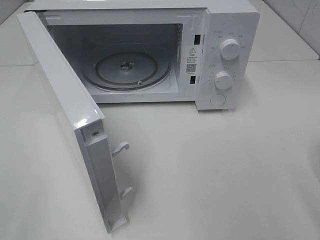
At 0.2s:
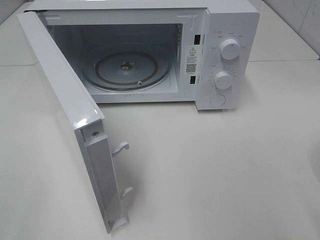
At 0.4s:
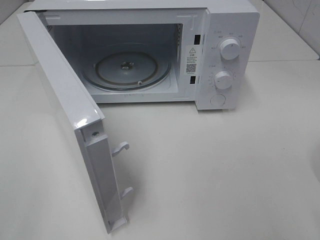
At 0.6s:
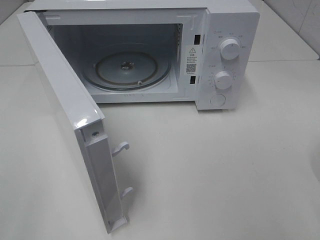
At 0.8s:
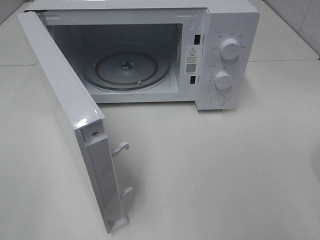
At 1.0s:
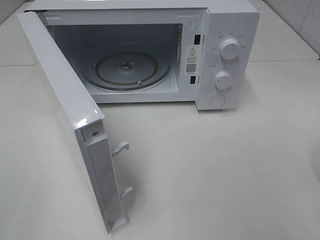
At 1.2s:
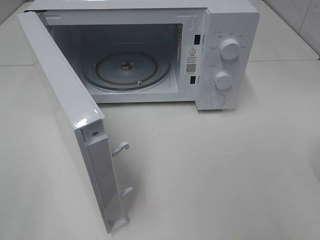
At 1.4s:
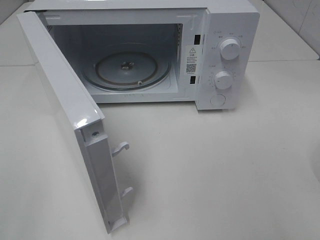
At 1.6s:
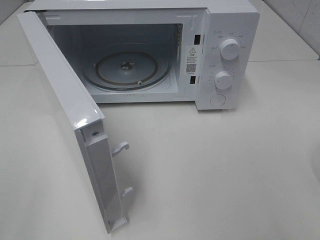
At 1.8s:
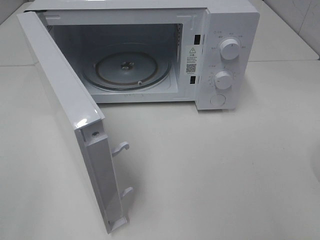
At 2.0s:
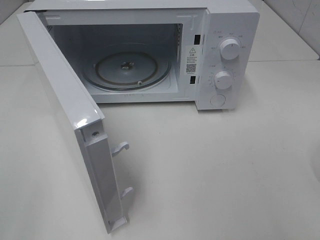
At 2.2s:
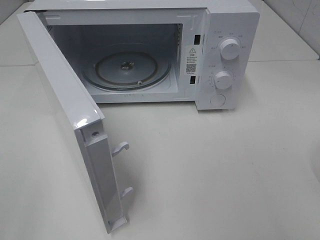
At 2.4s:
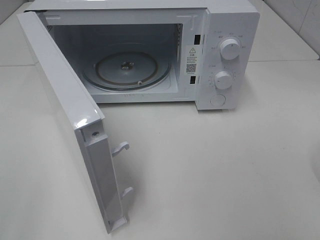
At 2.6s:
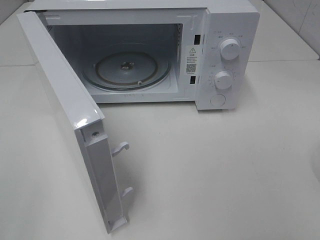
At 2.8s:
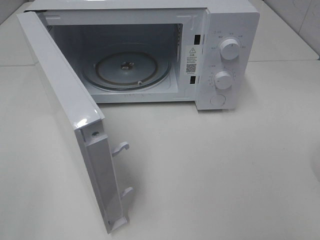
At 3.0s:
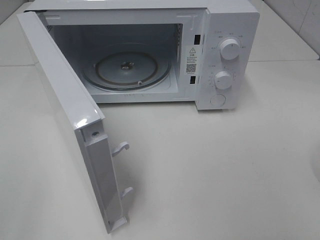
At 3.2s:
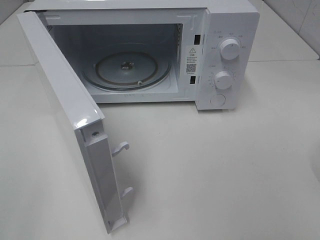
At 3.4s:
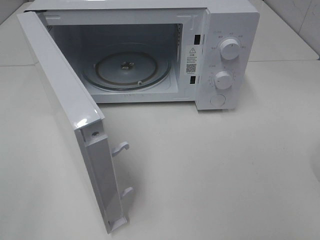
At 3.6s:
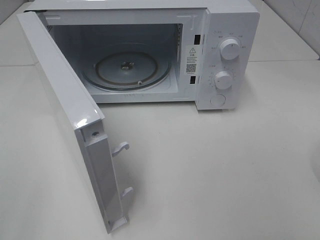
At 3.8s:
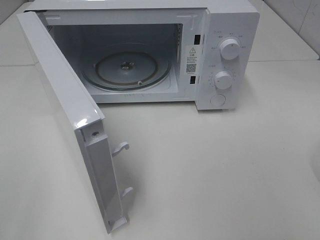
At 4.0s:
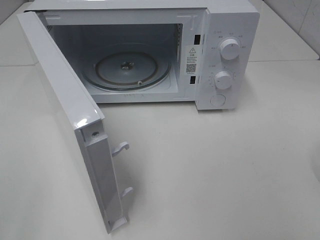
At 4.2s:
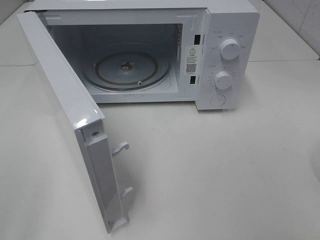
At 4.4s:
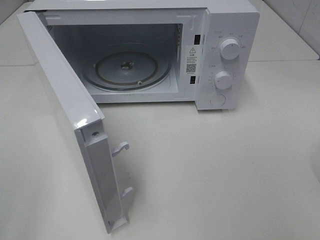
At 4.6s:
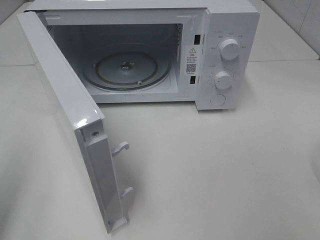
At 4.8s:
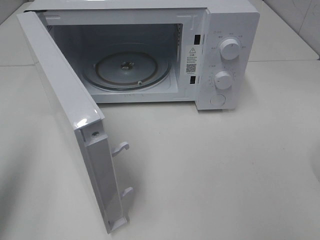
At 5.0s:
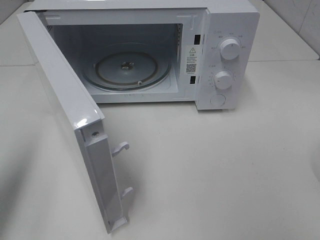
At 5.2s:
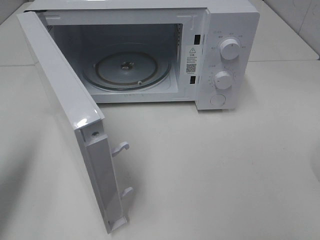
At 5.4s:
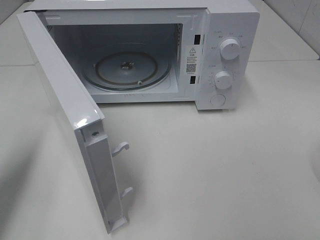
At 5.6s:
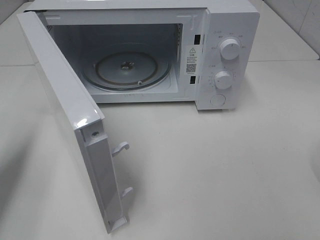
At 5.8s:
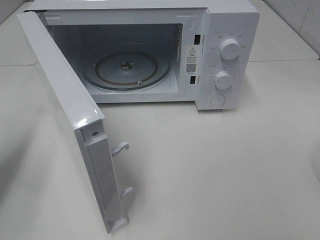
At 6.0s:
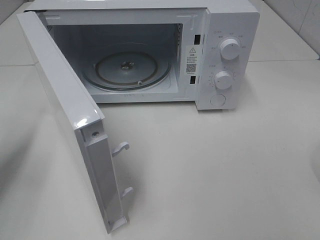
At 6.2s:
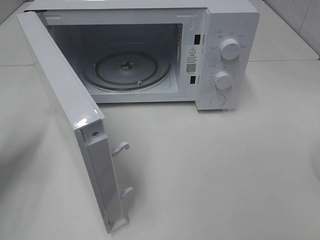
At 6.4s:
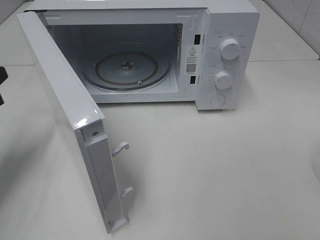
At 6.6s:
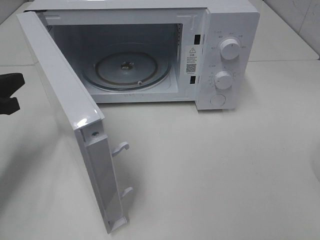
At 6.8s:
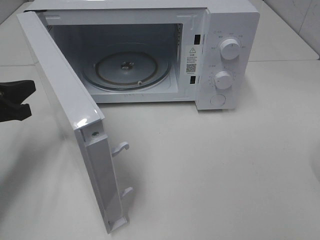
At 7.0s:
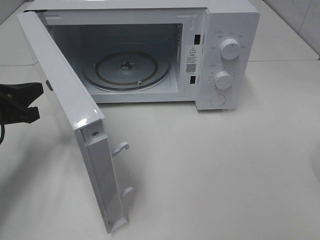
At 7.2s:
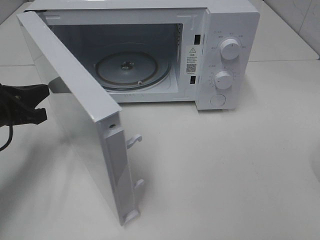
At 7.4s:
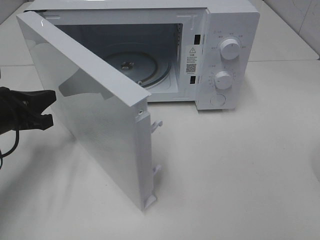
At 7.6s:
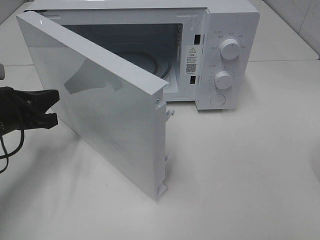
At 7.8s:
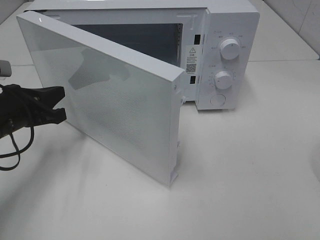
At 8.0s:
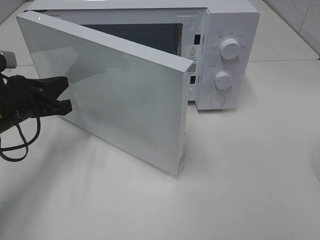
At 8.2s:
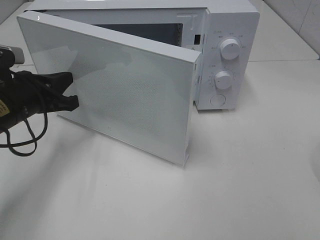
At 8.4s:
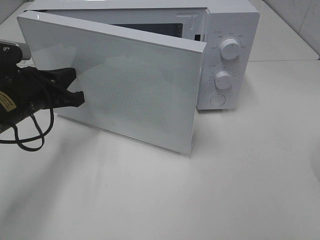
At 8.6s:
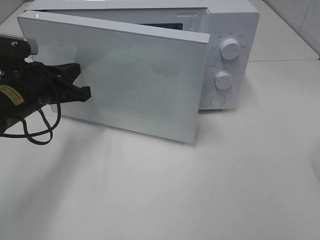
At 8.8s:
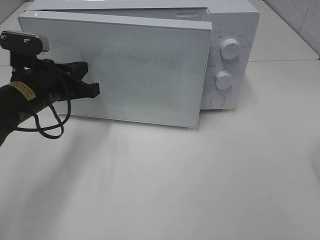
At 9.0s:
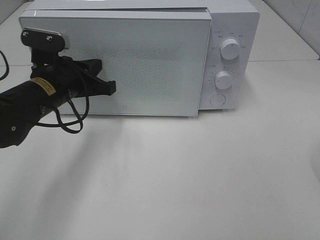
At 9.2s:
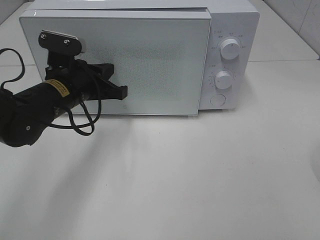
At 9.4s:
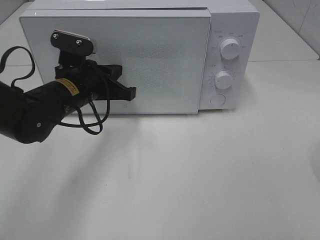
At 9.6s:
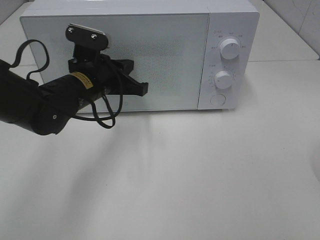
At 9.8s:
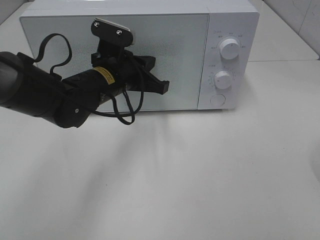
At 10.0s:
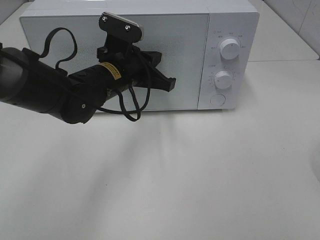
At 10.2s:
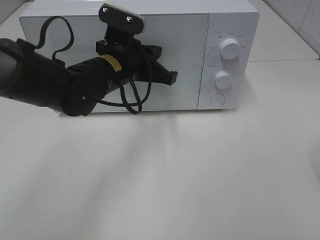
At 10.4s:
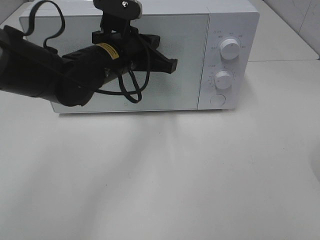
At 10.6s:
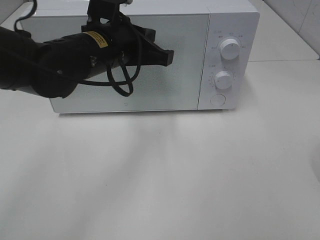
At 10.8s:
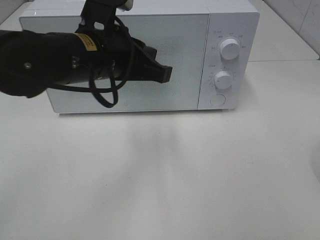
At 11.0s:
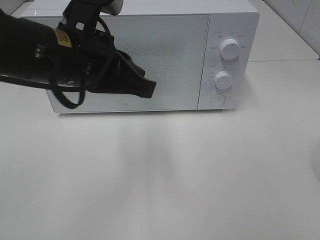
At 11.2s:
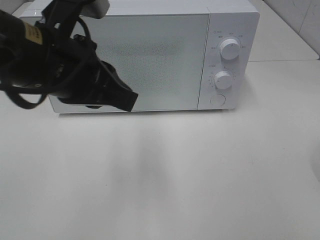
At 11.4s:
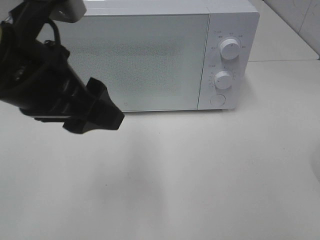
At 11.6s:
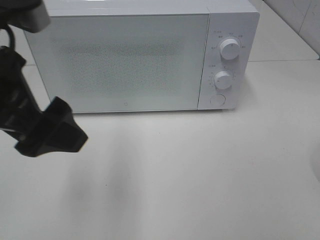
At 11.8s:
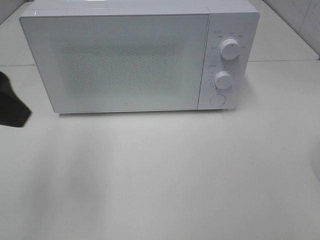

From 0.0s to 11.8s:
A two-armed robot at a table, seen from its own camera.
Task of the whole recording: Heat the burger.
Step, from 0.0s to 9.8s: Left hand: close the microwave door.
From 4.4s to 6.0s: The left gripper is displaced forward and downward by roughly 25 cm, and closes.
From 6.0s to 7.4s: The left gripper moves to the right and downward, some 10 cm.
From 7.4s to 8.8s: The left gripper shifts some 10 cm to the right.
From 8.8s to 10.4s: The left gripper is displaced to the right by approximately 10 cm.
From 10.4s to 11.8s: The left gripper is displaced to the left, backward and upward by about 25 cm, and opens.

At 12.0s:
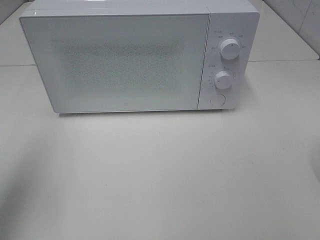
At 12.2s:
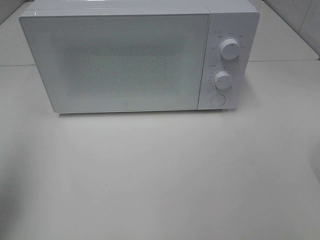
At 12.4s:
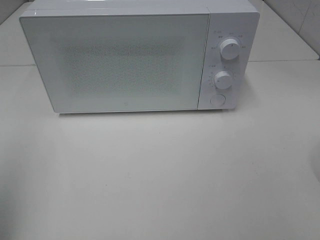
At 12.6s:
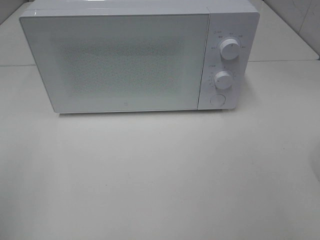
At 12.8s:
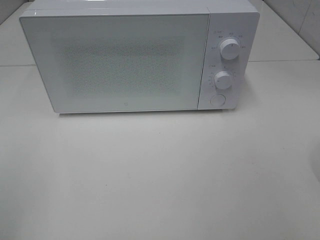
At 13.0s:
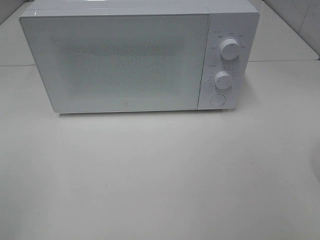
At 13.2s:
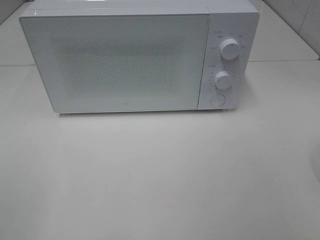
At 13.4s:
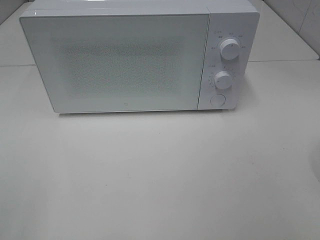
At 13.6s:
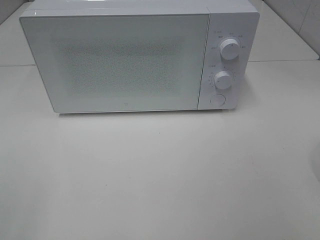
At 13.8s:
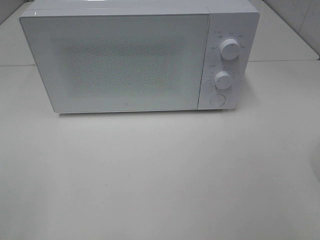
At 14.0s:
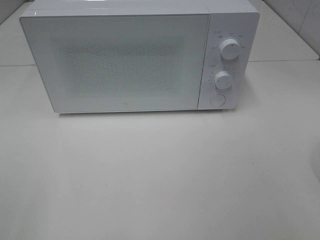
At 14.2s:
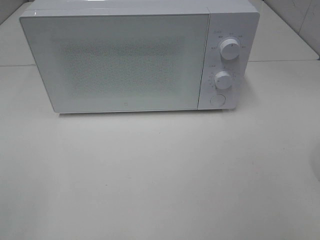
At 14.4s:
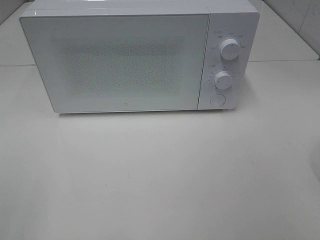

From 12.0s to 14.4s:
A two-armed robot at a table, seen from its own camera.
Task of the whole recording: Heat the burger.
From 12.0s to 13.2s: The left gripper is displaced backward by roughly 20 cm.
From 13.2s to 14.4s: Both grippers stay about where they are.

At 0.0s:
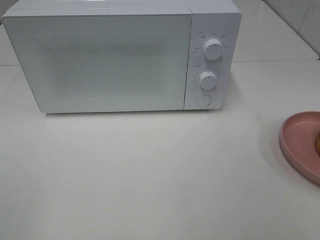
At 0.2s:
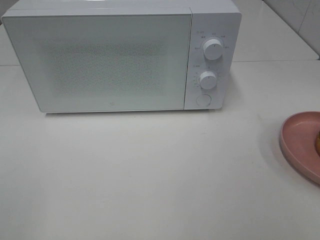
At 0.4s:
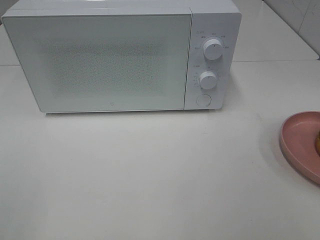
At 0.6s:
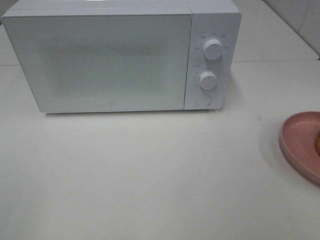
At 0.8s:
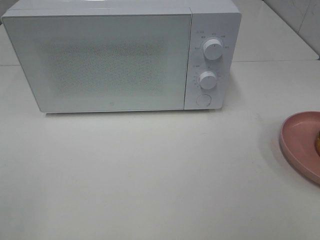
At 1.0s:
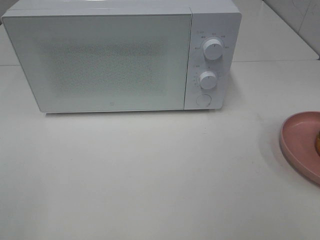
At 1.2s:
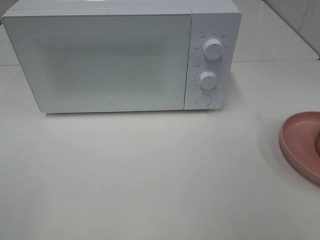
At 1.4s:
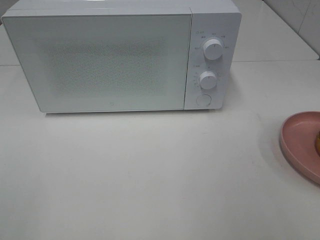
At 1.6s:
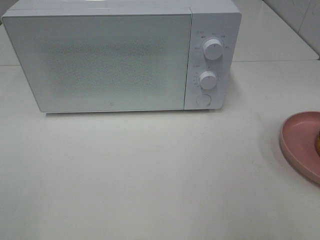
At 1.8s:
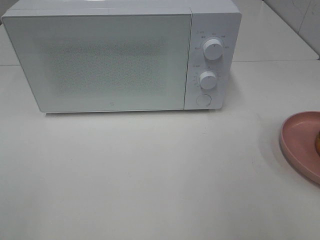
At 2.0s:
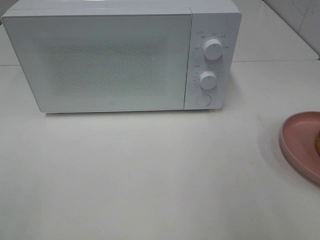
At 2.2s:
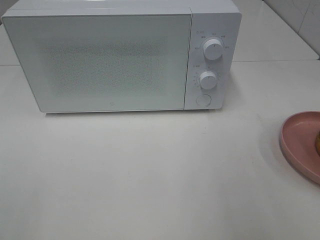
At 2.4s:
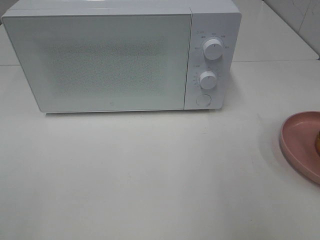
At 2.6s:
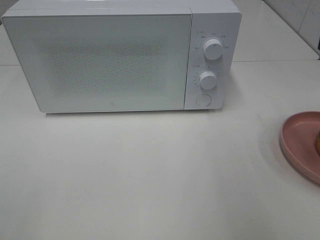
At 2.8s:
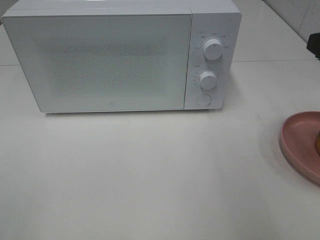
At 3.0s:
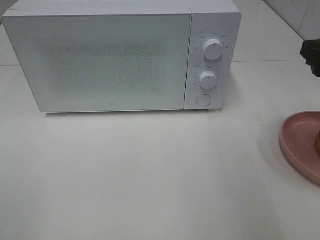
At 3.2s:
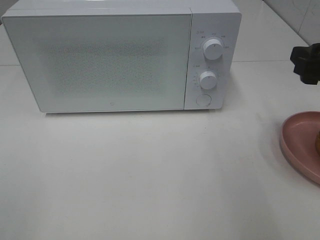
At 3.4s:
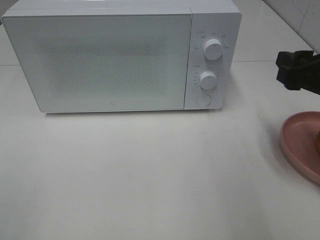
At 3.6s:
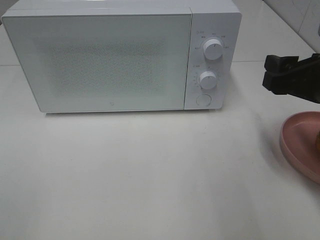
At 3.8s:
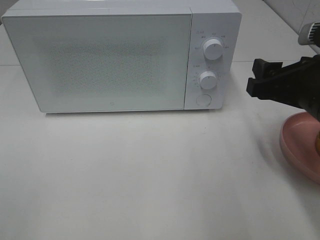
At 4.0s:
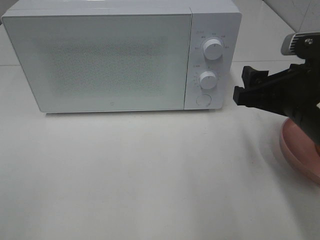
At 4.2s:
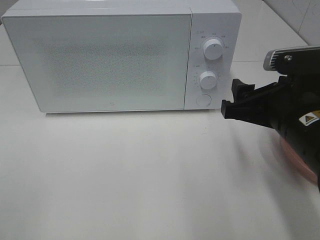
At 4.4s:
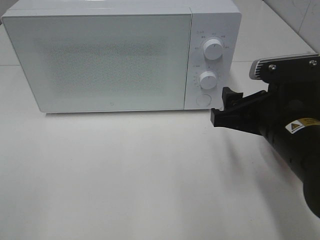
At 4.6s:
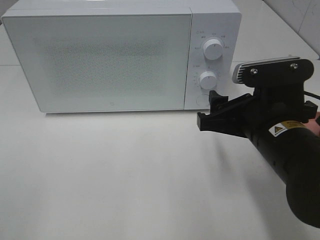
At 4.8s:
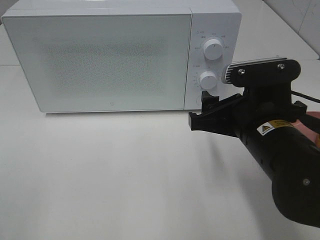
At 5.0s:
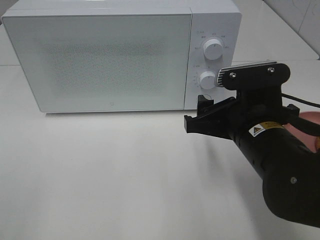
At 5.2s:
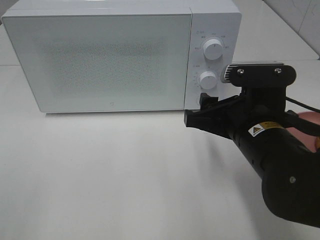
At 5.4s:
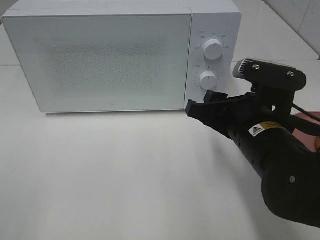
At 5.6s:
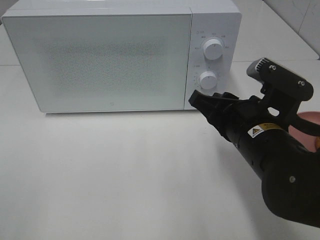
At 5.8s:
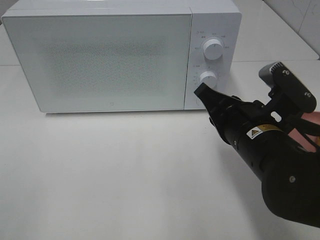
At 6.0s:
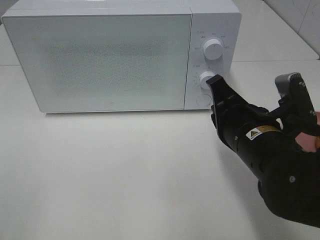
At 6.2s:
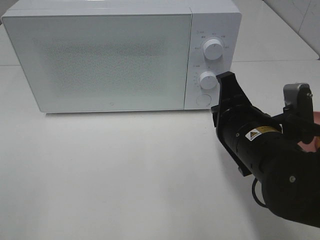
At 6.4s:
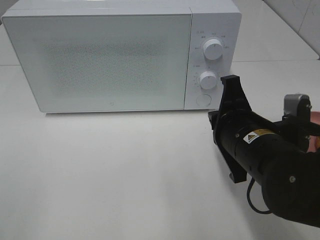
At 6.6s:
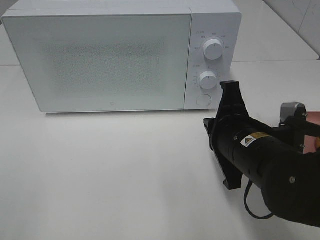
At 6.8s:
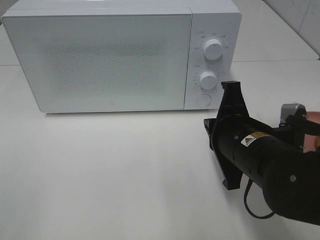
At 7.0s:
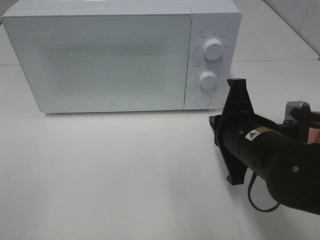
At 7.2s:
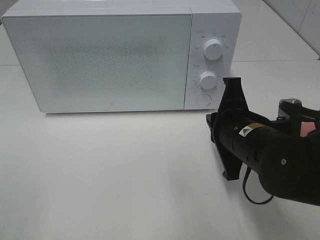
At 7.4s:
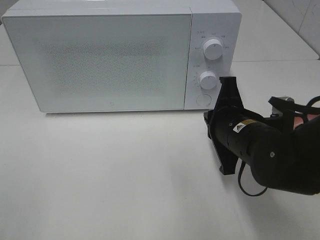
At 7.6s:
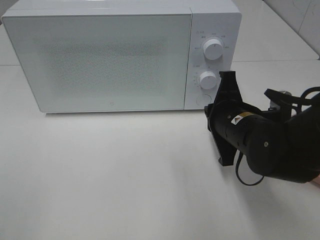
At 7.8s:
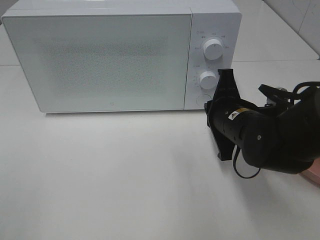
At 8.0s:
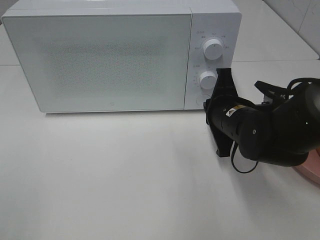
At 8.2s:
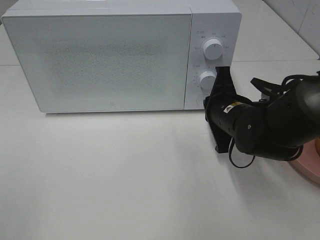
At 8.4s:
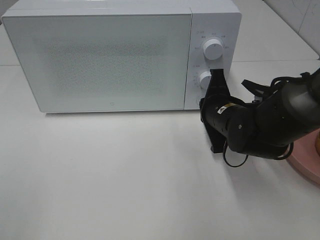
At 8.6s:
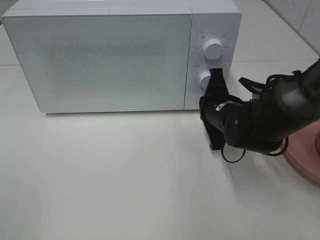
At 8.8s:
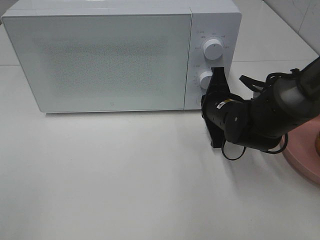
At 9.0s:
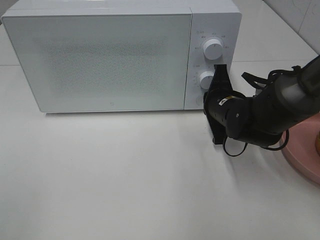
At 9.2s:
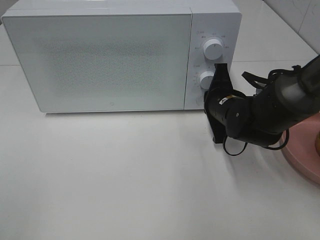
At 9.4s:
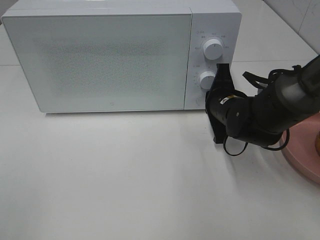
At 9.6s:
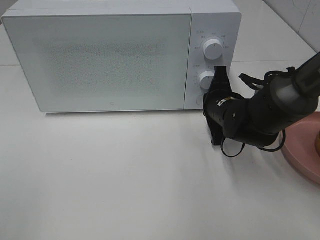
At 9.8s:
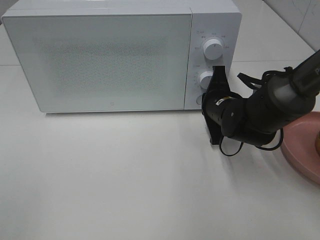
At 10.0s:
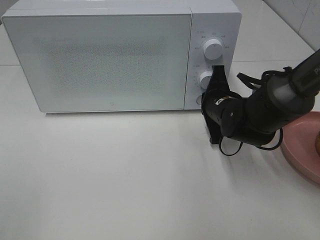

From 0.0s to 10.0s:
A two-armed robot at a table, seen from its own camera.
Task of the whole recording: Heat the burger.
From 2.8s to 4.2s: The right gripper is displaced to the left and downward by roughly 15 cm.
From 4.2s to 5.8s: The right gripper shifts by roughly 5 cm, and closes.
From 7.2s to 8.6s: The right gripper heads forward, covering approximately 10 cm.
From 8.6s to 10.0s: The grippers move only a little.
